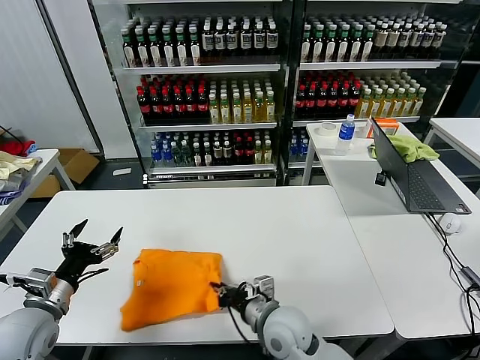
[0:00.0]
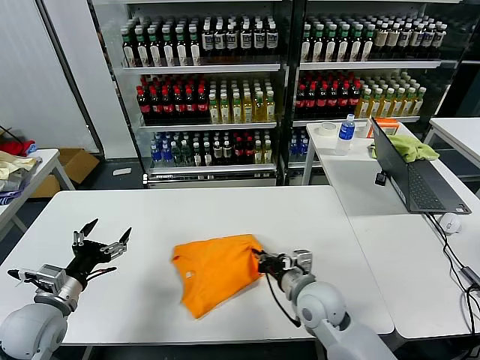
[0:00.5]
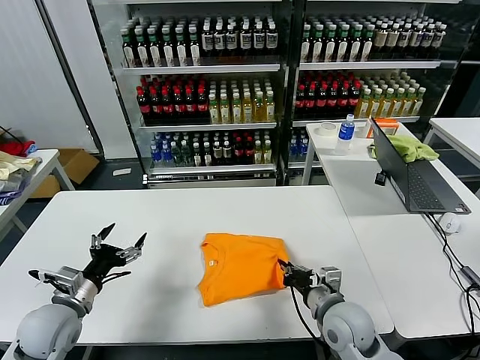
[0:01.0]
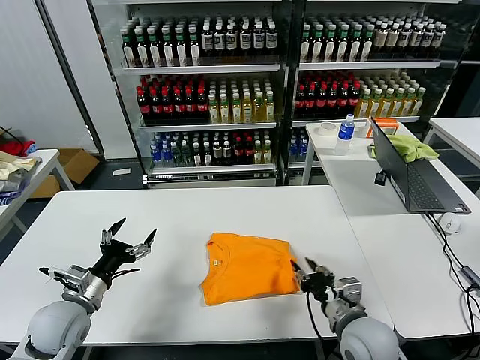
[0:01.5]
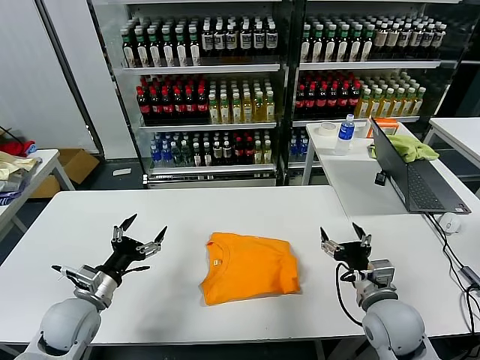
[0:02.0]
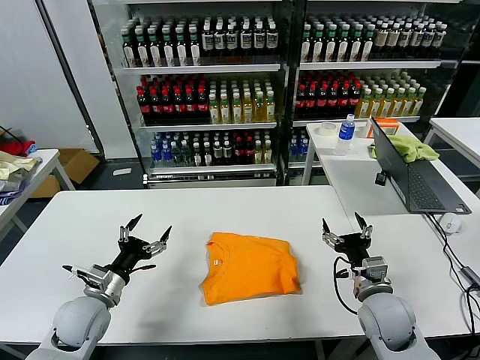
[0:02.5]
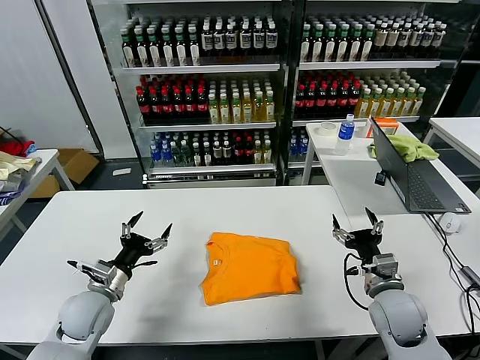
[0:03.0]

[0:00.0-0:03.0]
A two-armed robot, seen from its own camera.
Task of the whole recording: fold and organize the clothes.
0:00.0 to 0:01.5: The left gripper shifts by approximately 5 cm. The right gripper travels to the right by approximately 15 cm, and opens.
0:01.5 to 0:03.0: The right gripper moves to the right and forward, about 10 cm, and opens up, while the left gripper moves some 5 cm.
